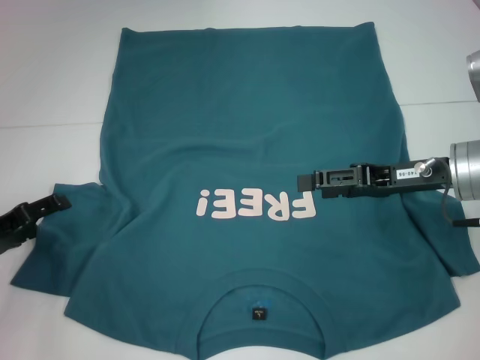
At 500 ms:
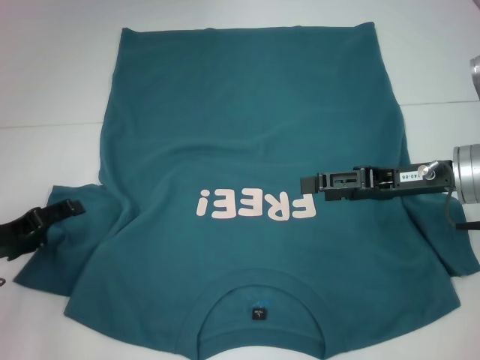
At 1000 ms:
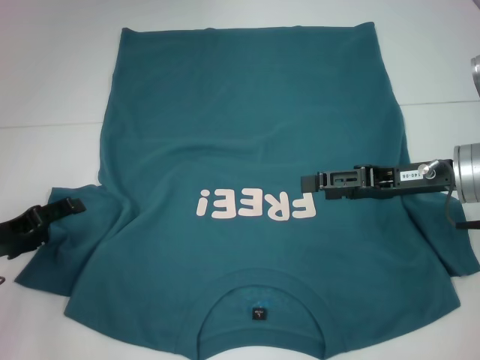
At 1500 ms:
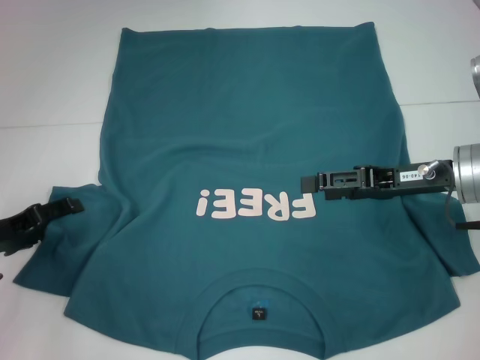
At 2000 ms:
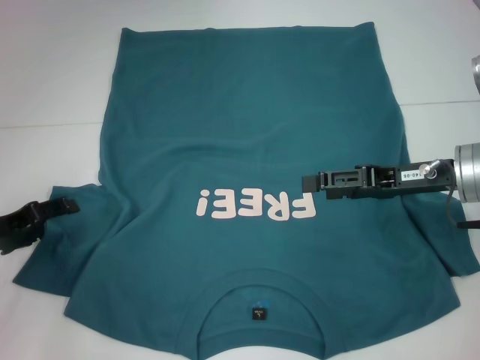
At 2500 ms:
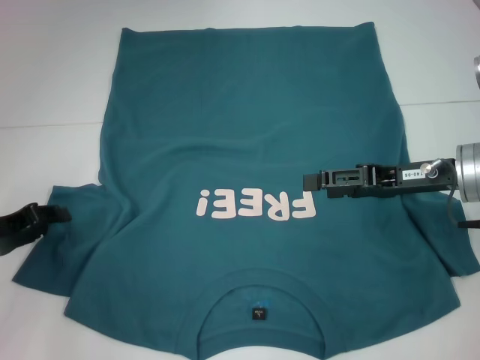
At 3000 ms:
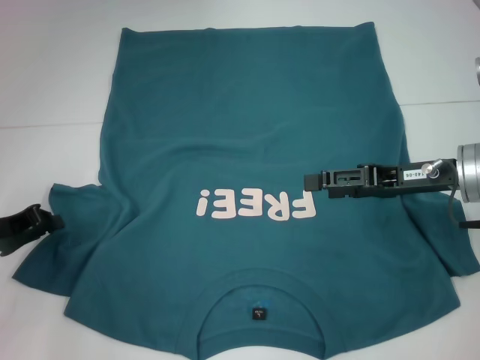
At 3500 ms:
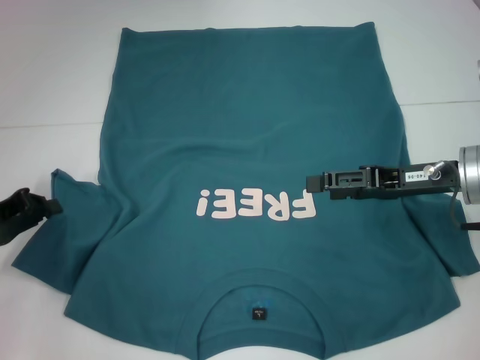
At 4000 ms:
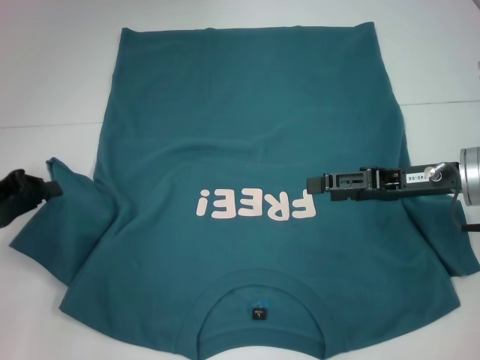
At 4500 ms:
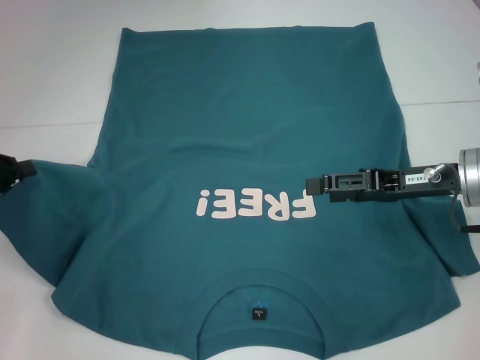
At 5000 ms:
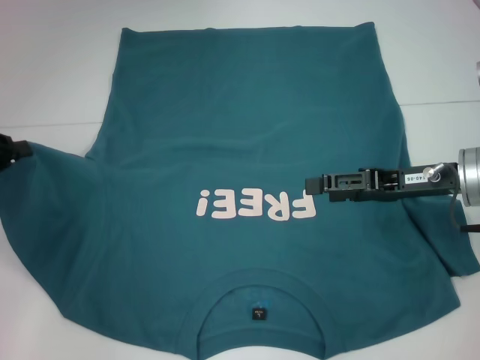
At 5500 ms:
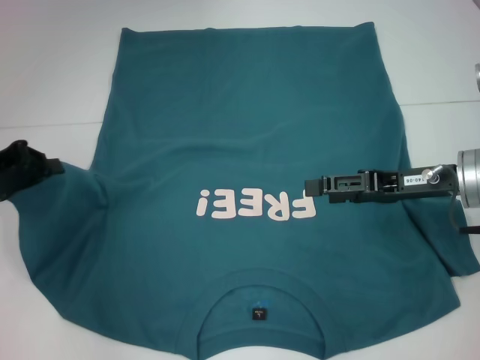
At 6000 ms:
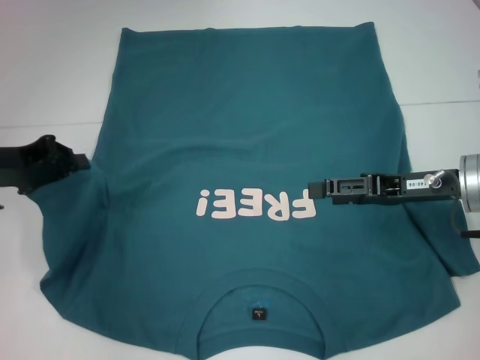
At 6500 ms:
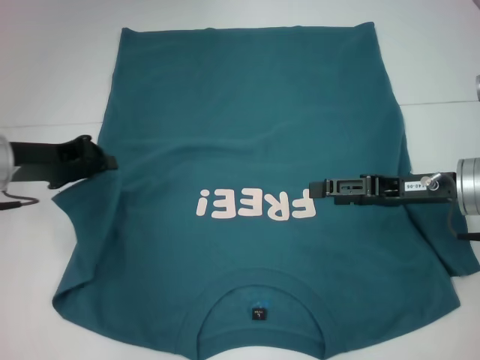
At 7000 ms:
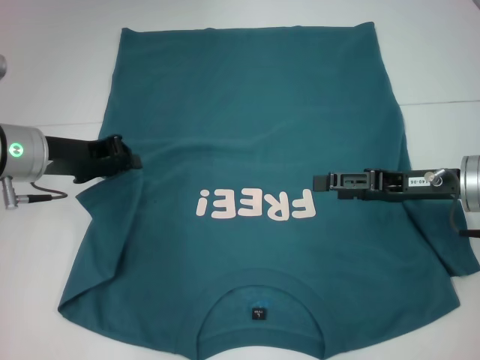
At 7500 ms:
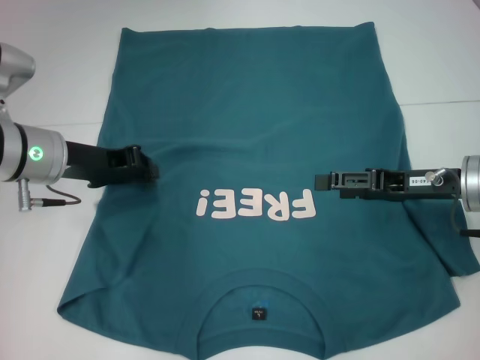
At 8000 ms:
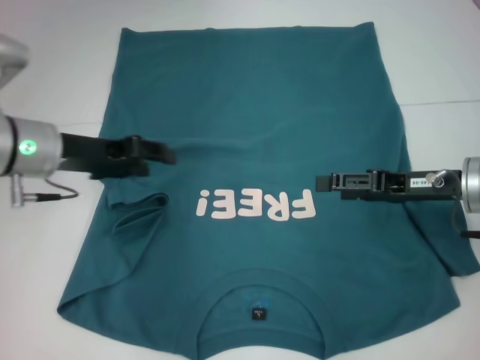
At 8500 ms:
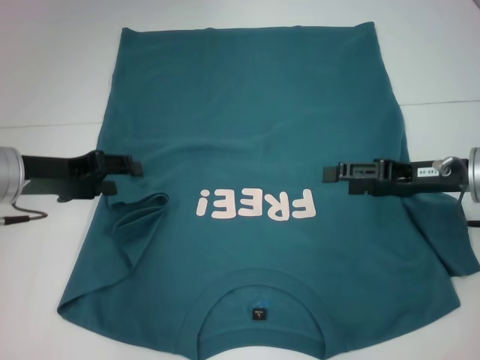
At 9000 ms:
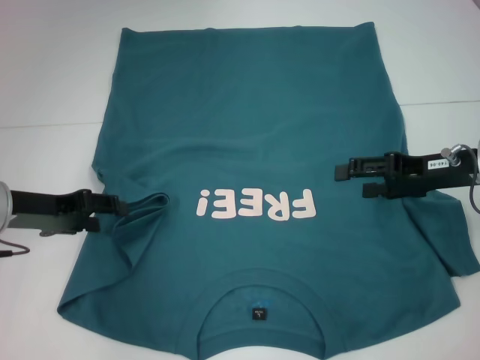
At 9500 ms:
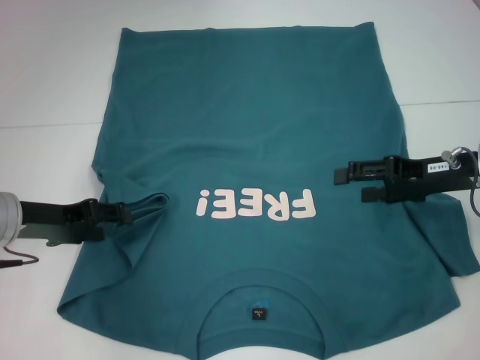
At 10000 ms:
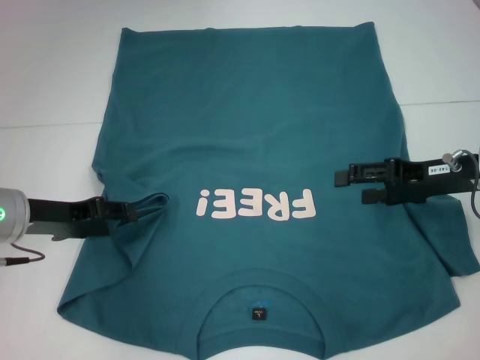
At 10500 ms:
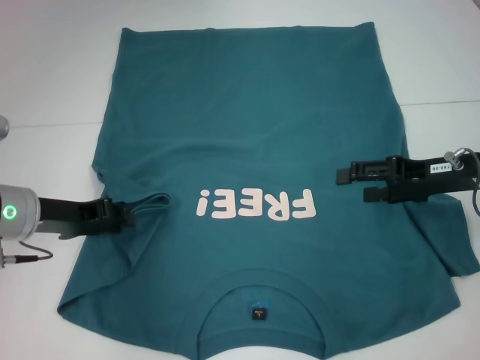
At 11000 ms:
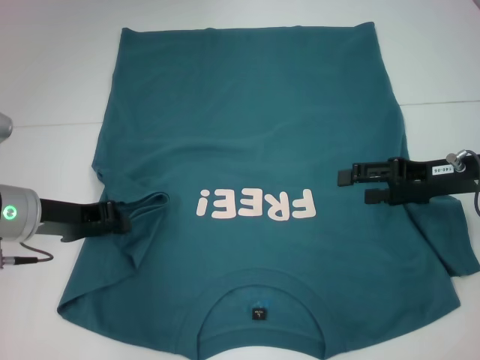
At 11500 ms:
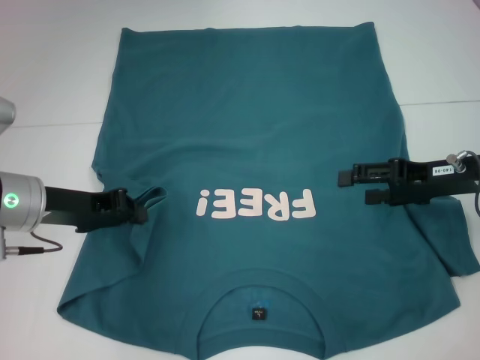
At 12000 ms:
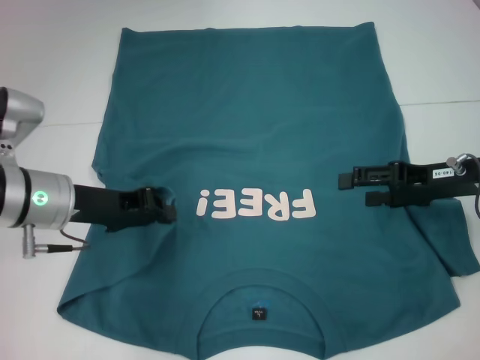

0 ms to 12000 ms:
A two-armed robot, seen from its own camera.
0 ms to 2000 ms: The grippers make only small movements.
2000 ms to 4000 ms: The left gripper closes its fingers.
4000 ms to 6000 ms: The left gripper changes place by some 5 cm.
6000 ms to 8000 ms: The left gripper travels to the right by approximately 10 cm.
8000 ms to 10000 ms: The left gripper heads downward, covering approximately 5 cm.
10000 ms to 12000 ms: The left gripper closes.

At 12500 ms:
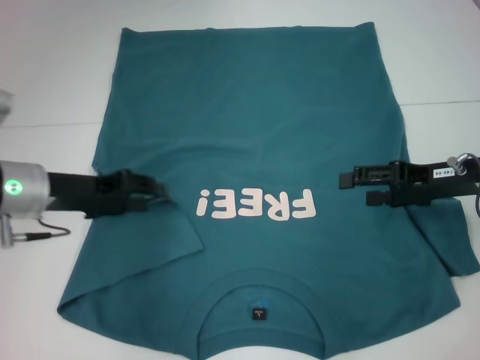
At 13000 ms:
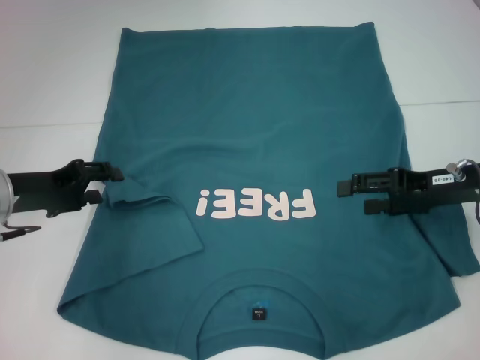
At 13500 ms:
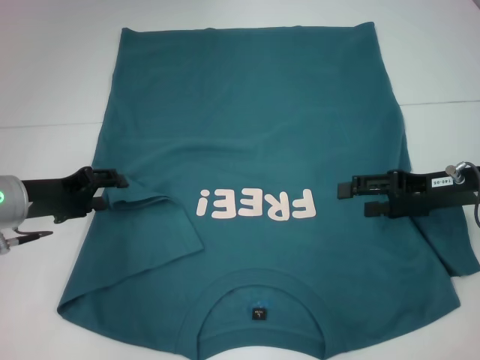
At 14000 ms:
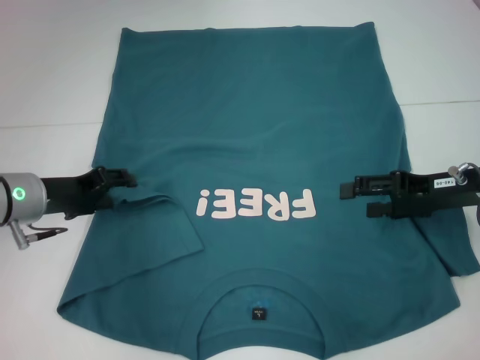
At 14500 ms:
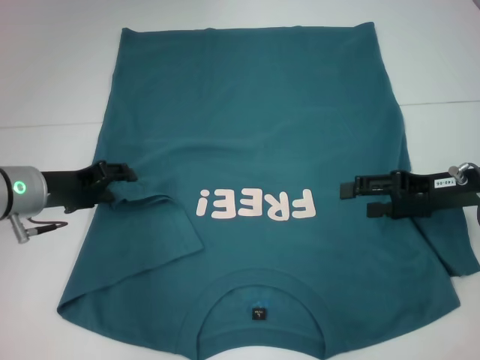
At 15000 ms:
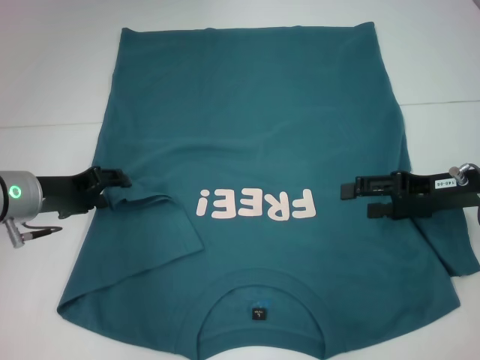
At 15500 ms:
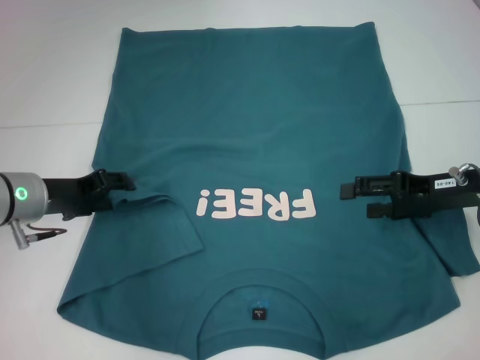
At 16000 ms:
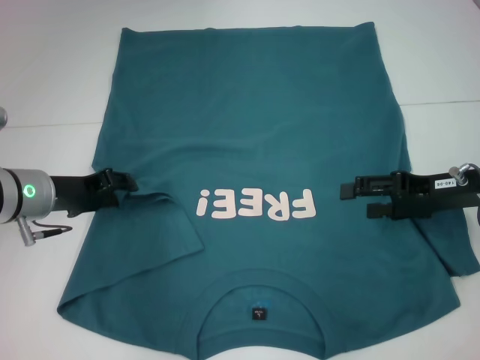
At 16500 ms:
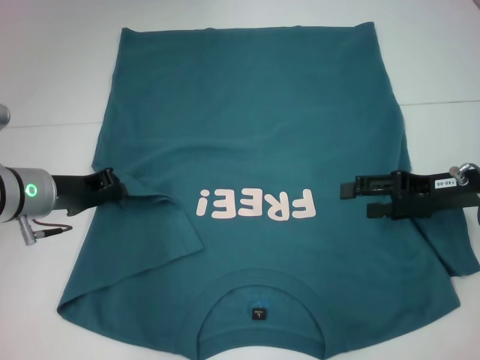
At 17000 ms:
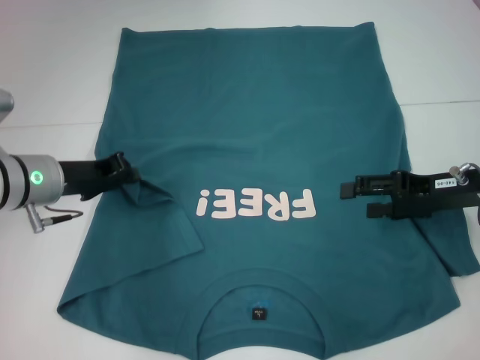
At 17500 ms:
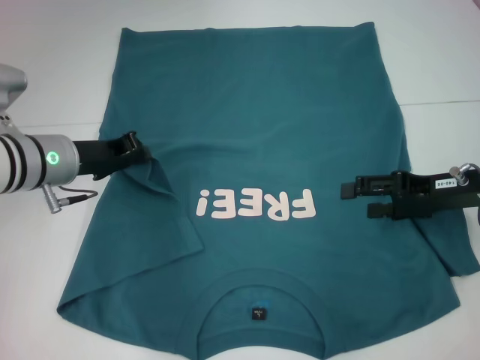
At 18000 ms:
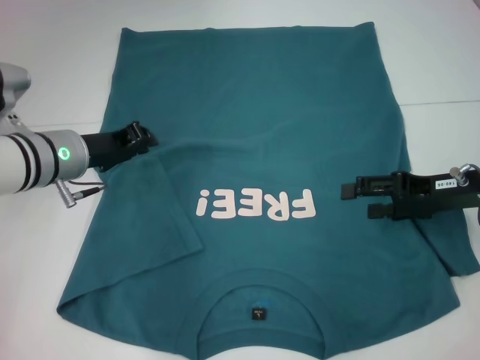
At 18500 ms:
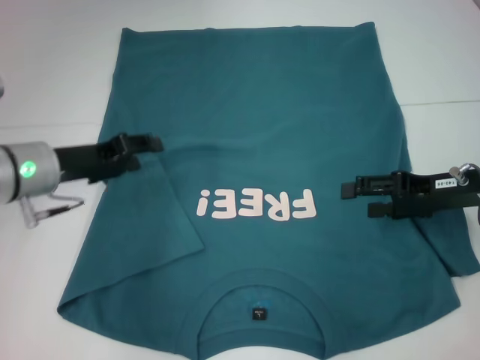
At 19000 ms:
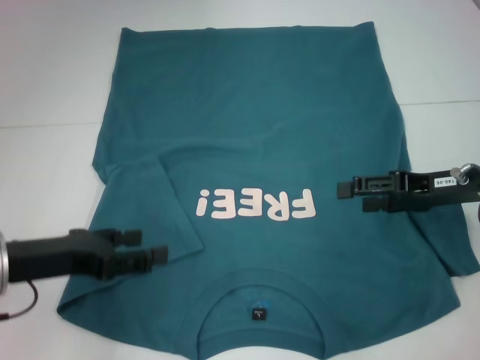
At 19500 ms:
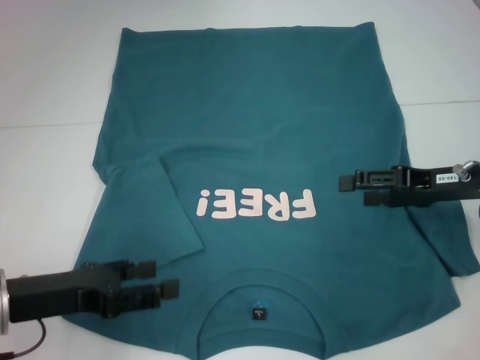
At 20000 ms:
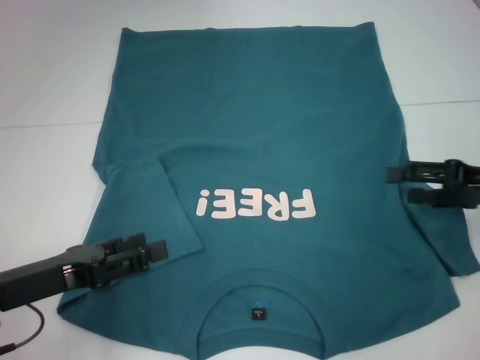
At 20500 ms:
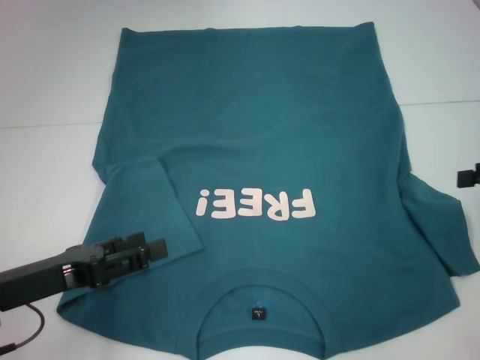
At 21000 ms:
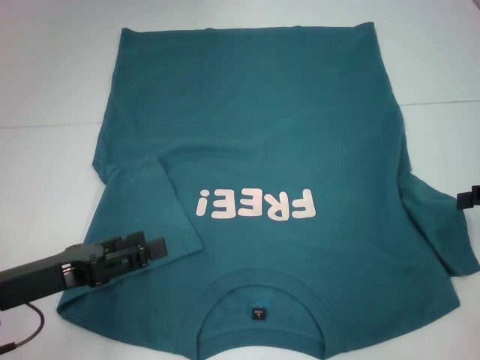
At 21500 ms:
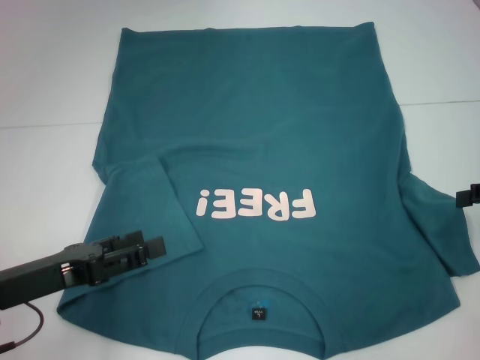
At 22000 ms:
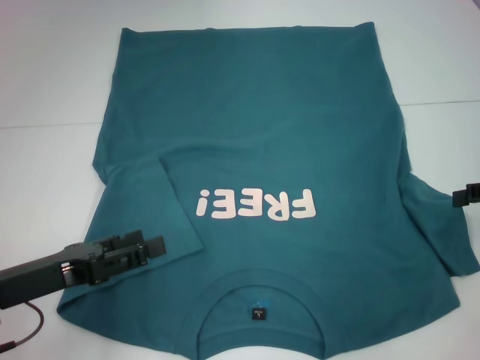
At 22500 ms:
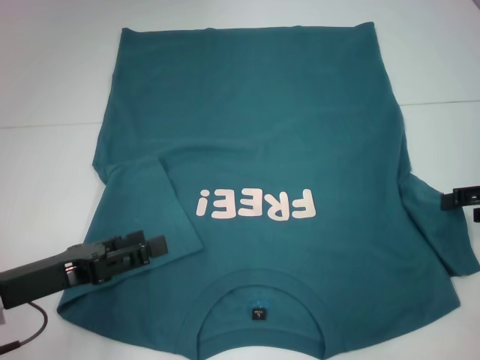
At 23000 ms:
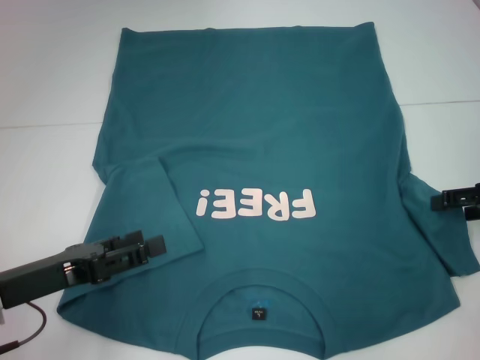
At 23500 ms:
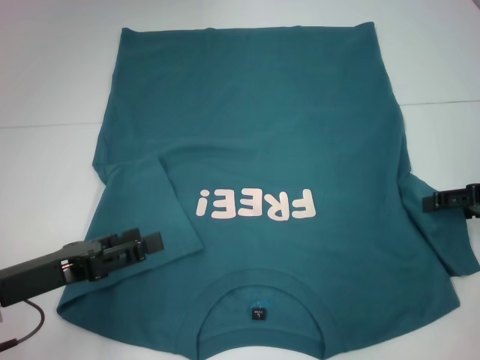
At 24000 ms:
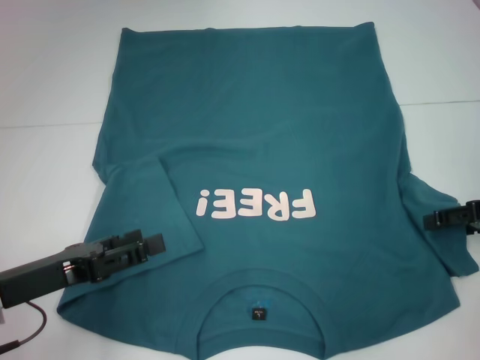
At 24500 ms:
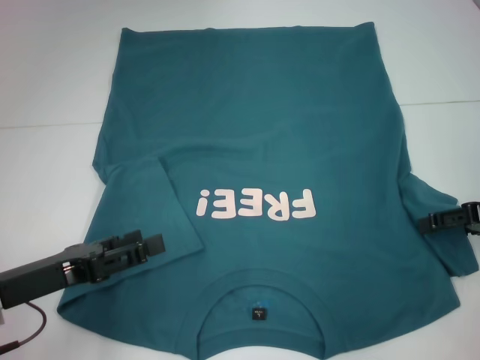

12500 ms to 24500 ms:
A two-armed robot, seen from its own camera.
Step, 12500 ms to 17500 ms: Fold the bottom left sleeve with your left hand.
12500 ms to 14500 ms: The left gripper opens its fingers.
14500 ms to 16500 ms: The left gripper closes.
16500 ms to 18500 ms: There are only small adjustments of the grippers.
18500 ms to 20500 ms: The right gripper heads to the right, covering approximately 10 cm. The left gripper goes some 15 cm backward, and opens up.
20500 ms to 24500 ms: There are only small adjustments of the grippers.

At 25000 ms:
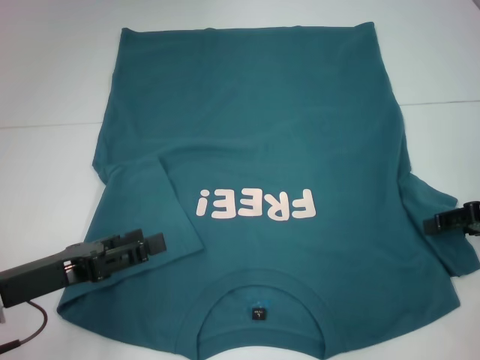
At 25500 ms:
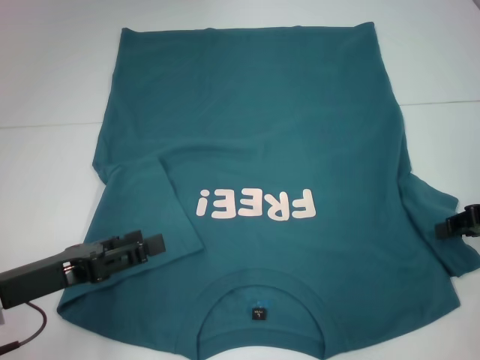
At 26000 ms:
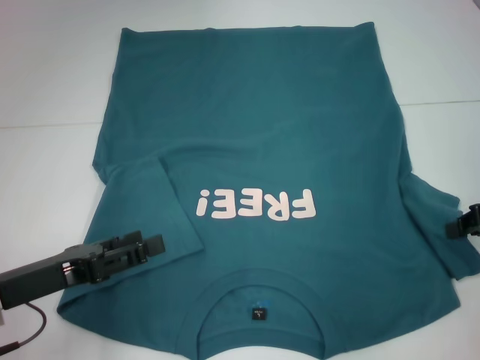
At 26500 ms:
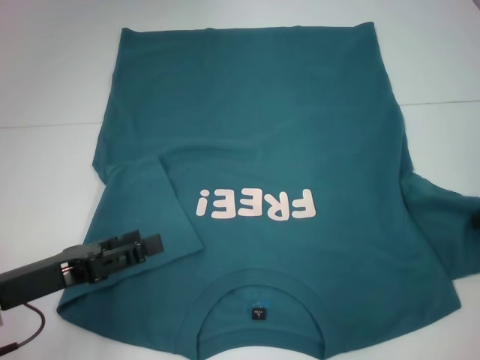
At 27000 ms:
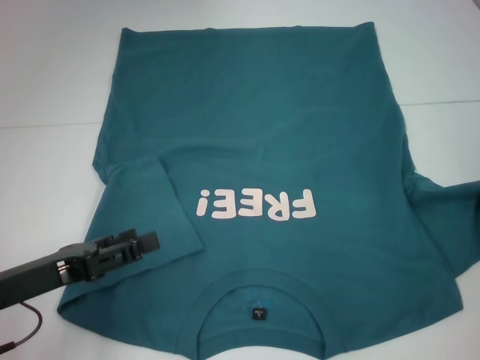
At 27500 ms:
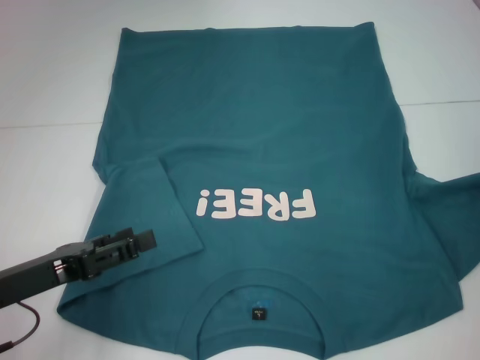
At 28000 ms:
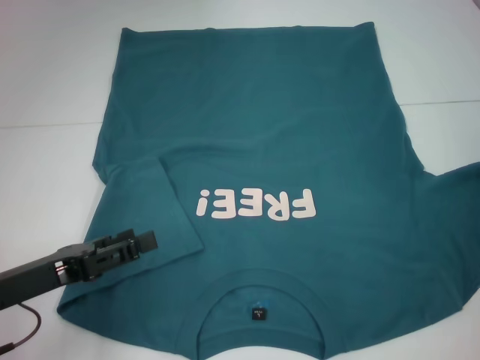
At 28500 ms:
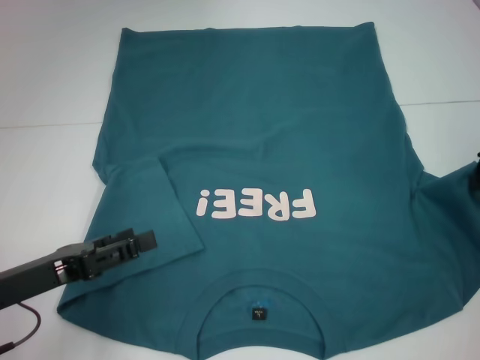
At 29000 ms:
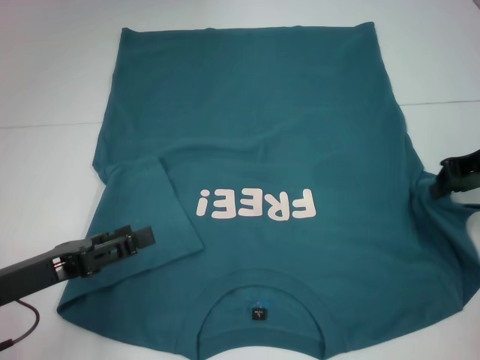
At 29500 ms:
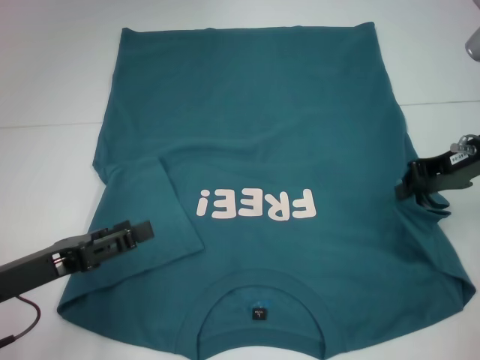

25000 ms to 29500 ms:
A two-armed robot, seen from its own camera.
25000 ms to 27000 ms: The right gripper closes.
27000 ms to 29500 ms: The right gripper is displaced to the left by about 10 cm.
